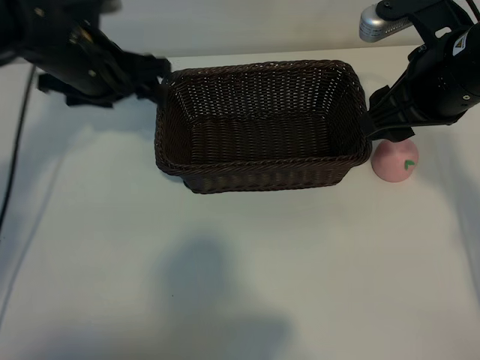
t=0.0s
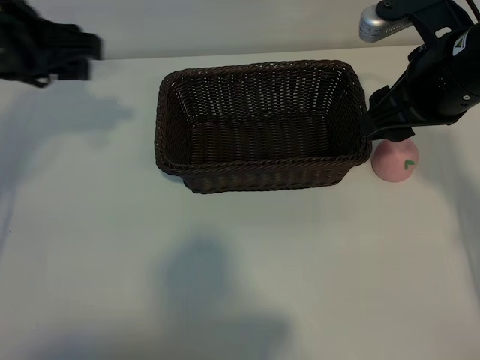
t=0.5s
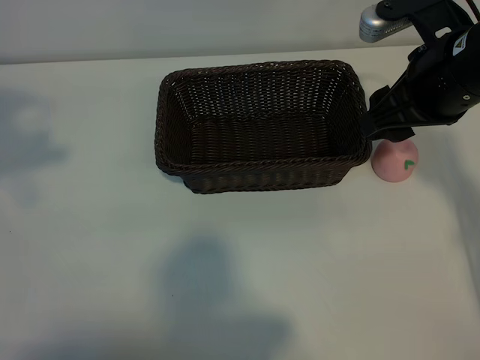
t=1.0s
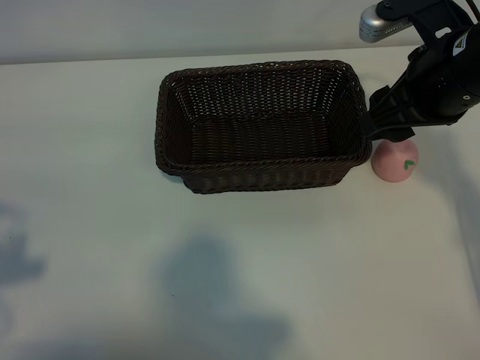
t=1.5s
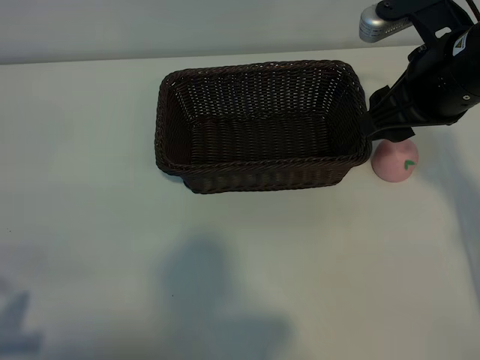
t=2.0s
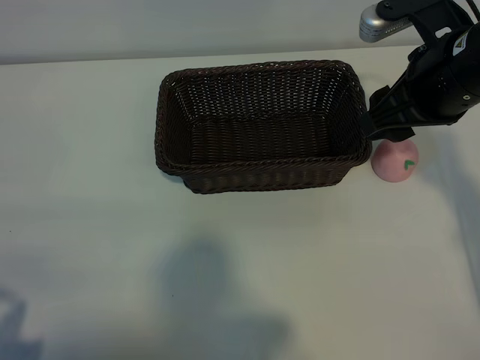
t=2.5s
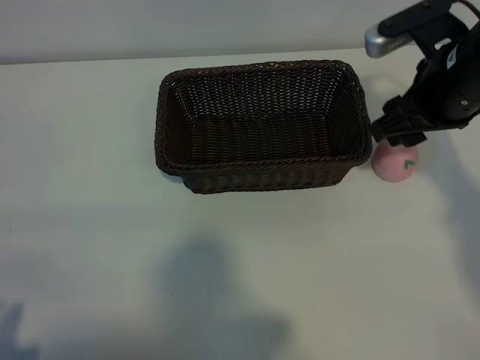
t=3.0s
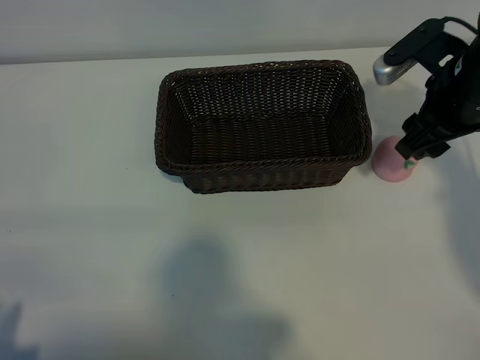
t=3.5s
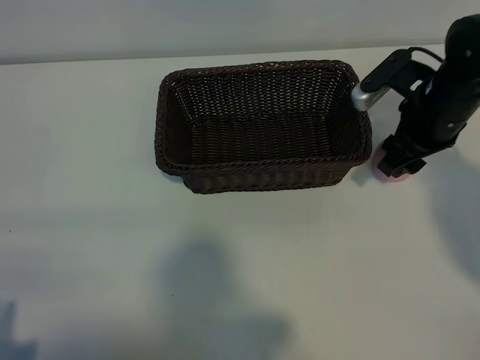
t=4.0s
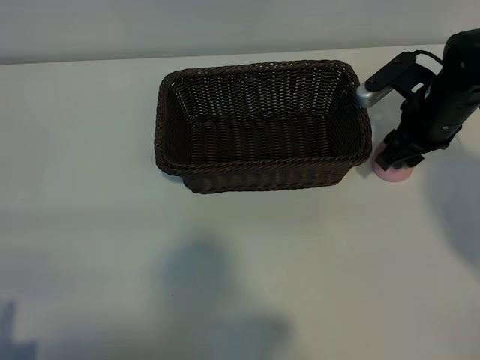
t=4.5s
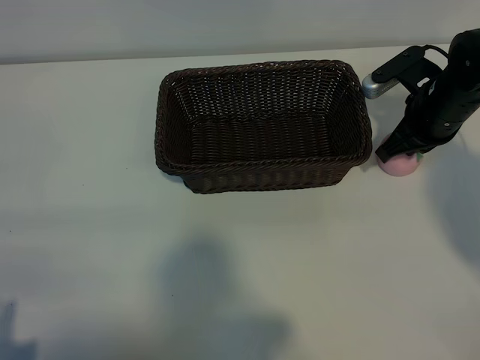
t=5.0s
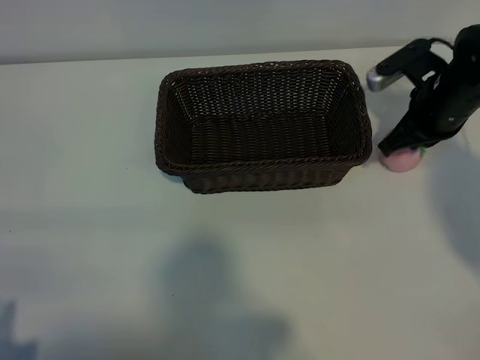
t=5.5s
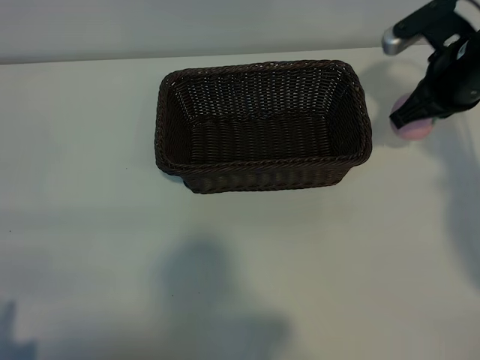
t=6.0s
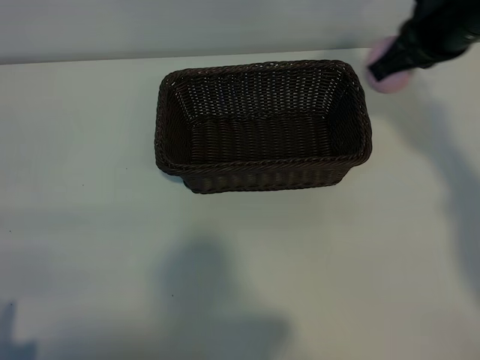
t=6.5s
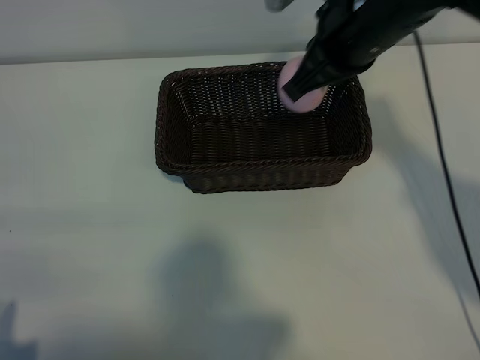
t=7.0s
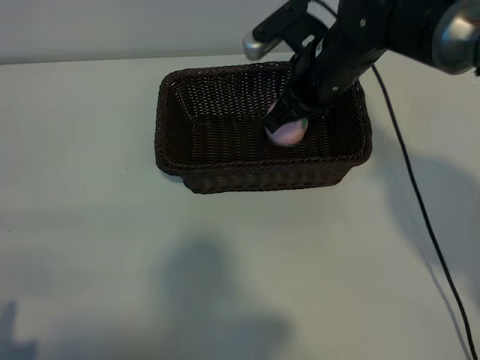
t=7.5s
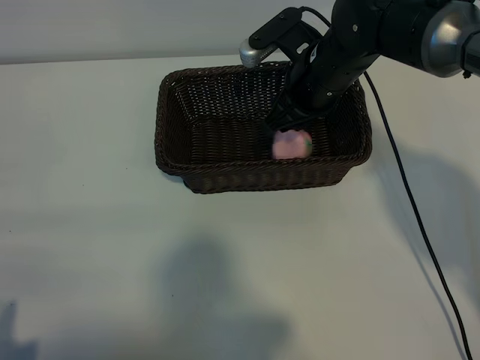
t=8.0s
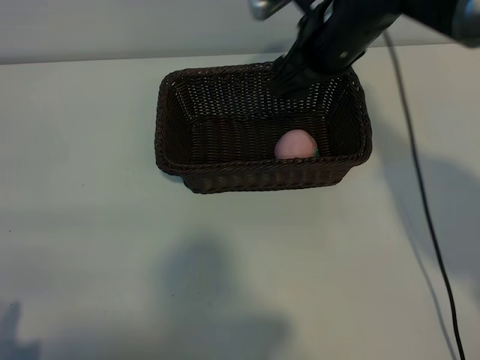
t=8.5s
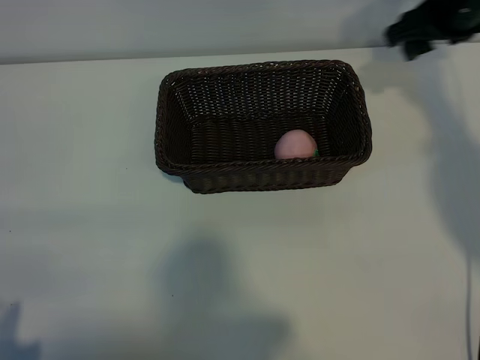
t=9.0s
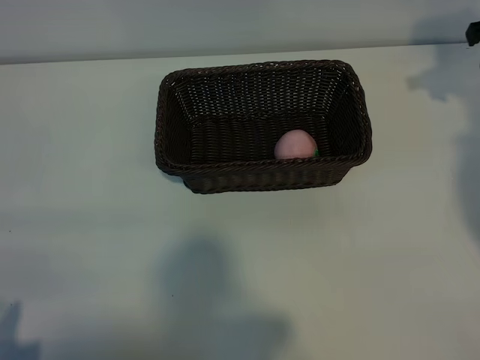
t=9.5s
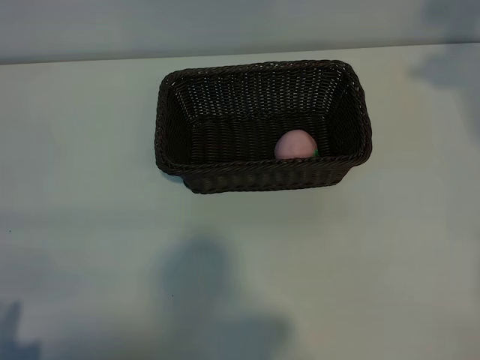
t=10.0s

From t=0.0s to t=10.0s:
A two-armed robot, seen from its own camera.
Task of the whole recording: pick up the peach and put it into the basket.
Step, from t=0.0s to t=5.0s: Grasp the peach with right gripper.
Step, from t=5.5s to t=8.0s: Place the peach in the basket with right gripper.

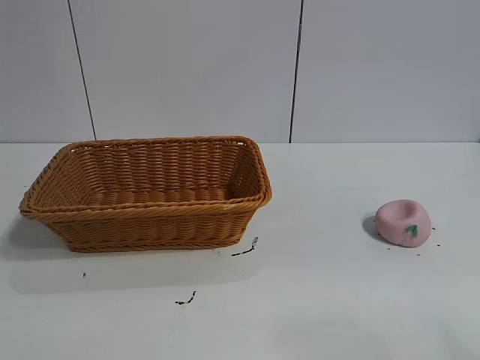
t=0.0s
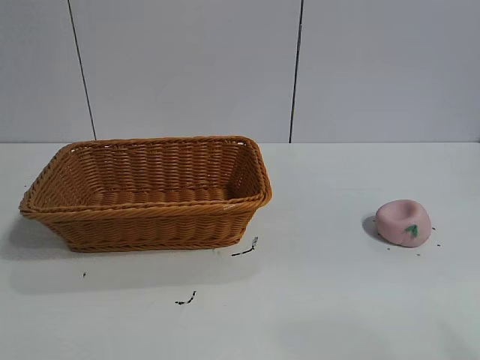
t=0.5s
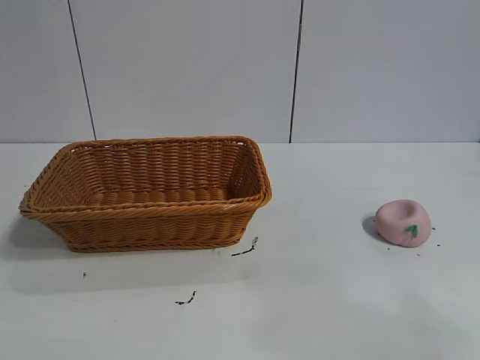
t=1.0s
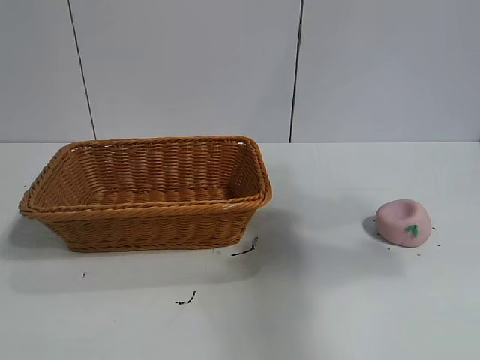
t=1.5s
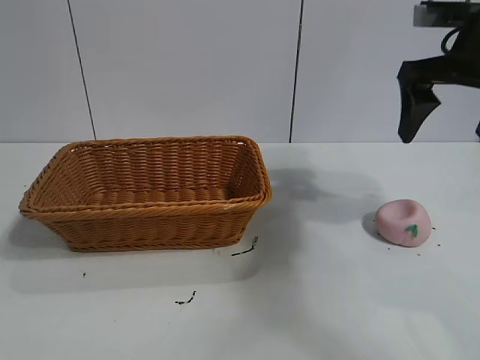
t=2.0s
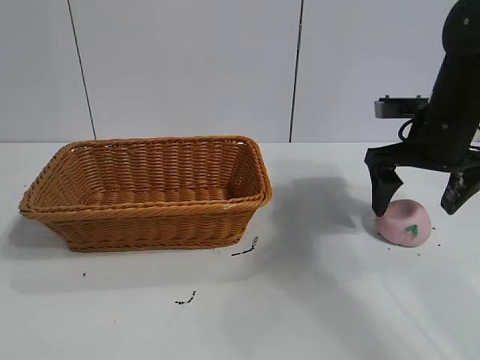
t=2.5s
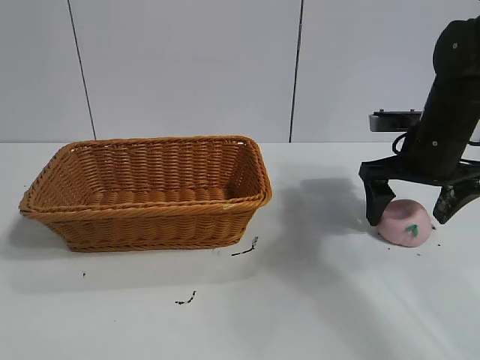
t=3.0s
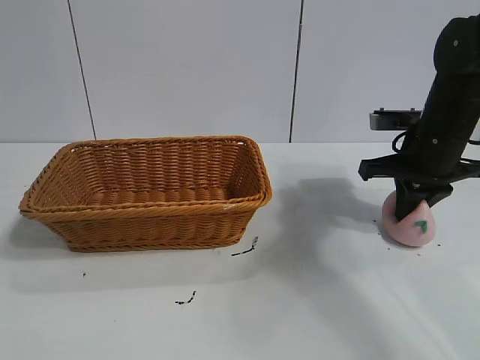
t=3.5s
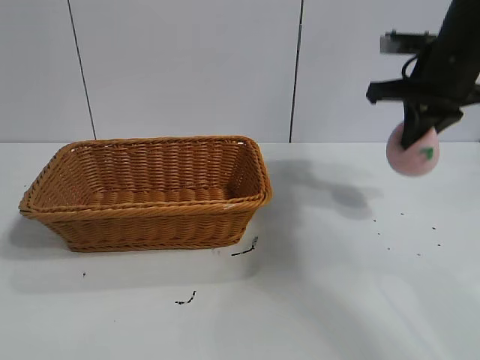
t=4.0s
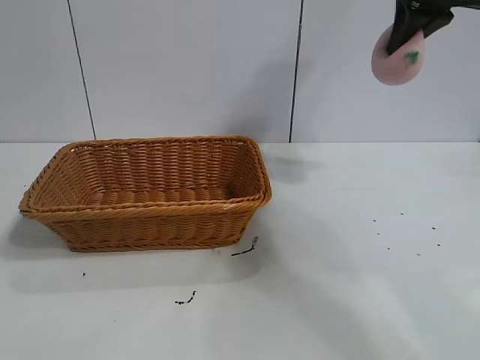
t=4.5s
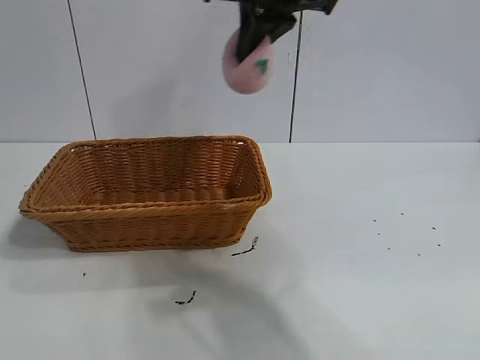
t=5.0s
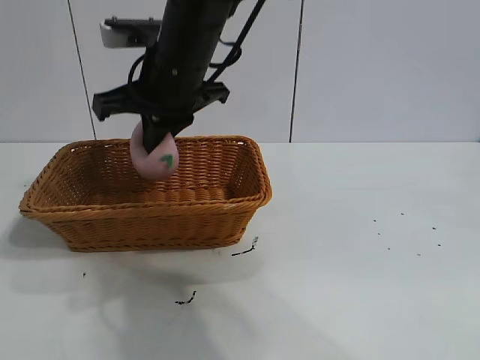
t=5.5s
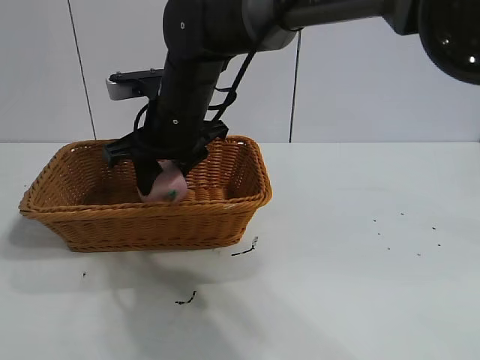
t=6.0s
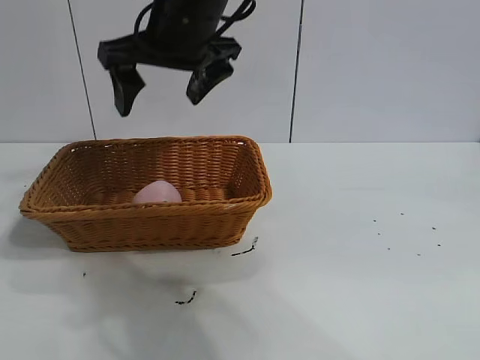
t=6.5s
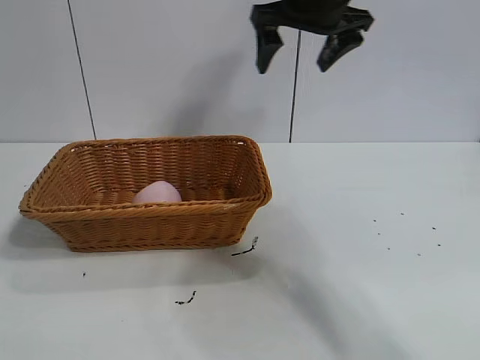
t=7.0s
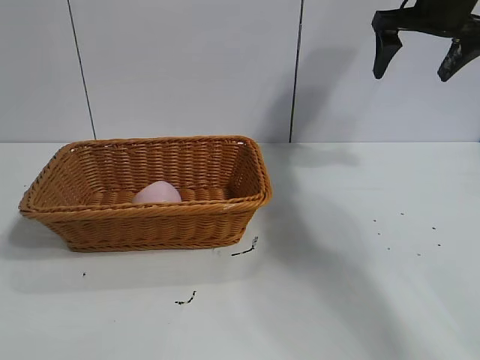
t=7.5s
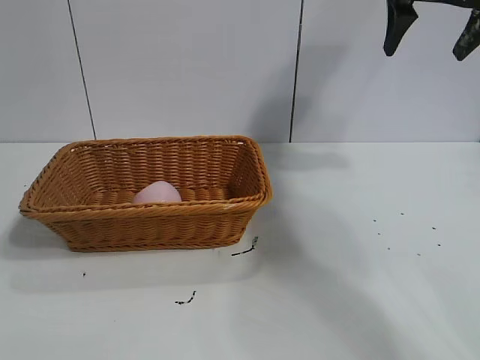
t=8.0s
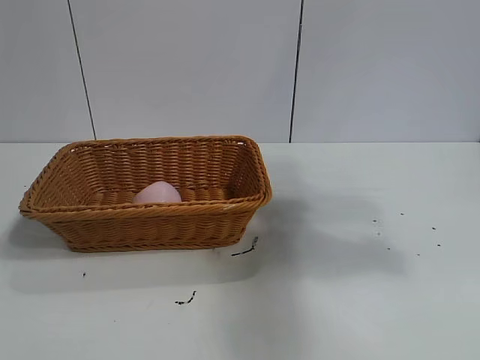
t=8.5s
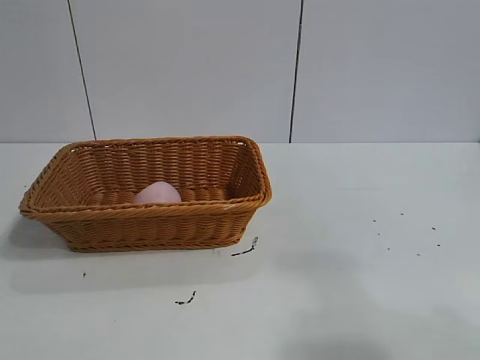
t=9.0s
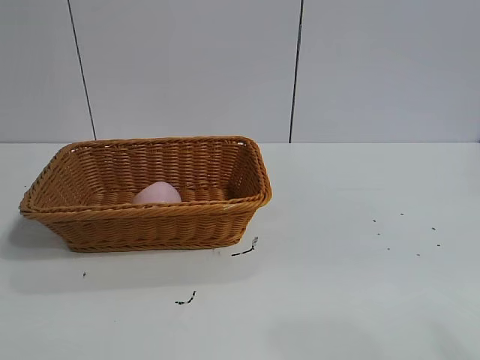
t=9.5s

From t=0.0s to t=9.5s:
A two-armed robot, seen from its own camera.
Task of the whole recording: pick up the peach and put it into the basket.
Step, from t=1.0s to t=3.5s: Grasp the peach with right gripper.
Step, from t=4.0s to t=6.0s: Place the peach in the basket with right gripper.

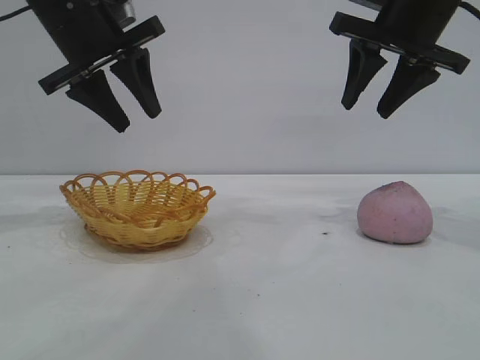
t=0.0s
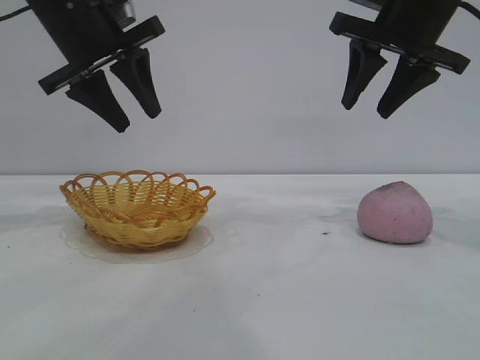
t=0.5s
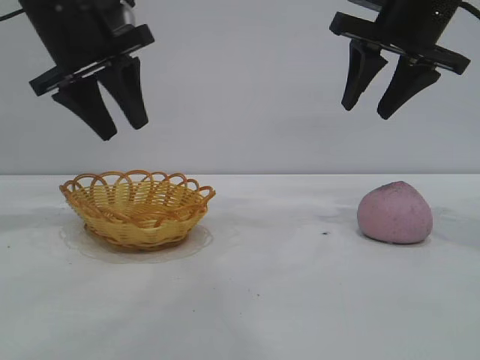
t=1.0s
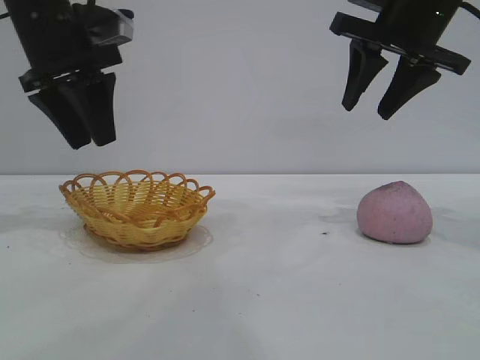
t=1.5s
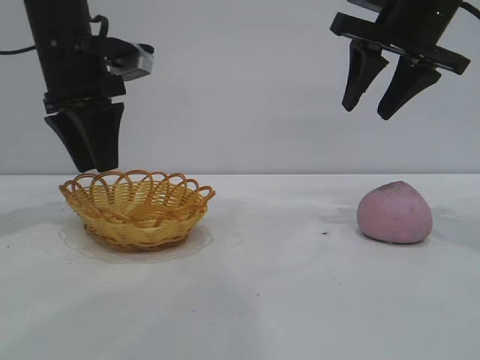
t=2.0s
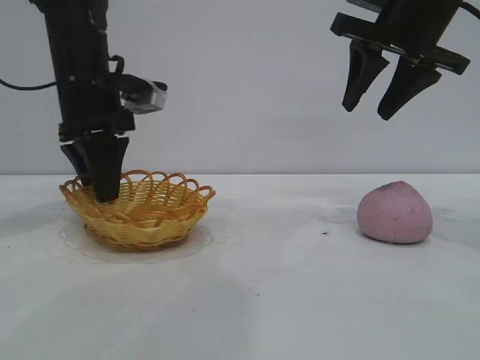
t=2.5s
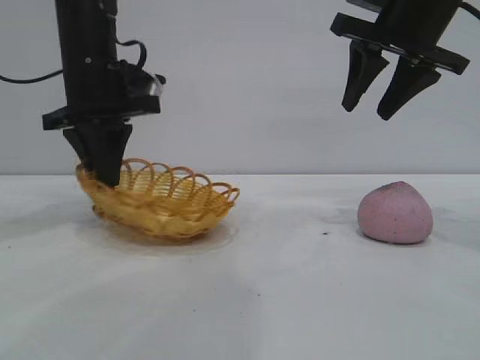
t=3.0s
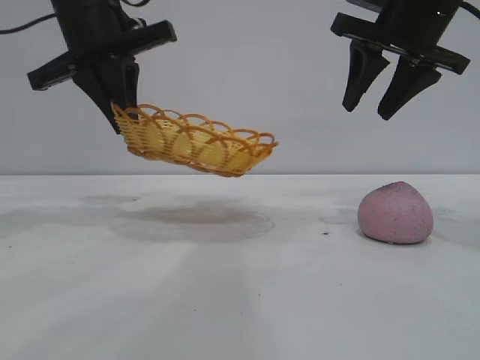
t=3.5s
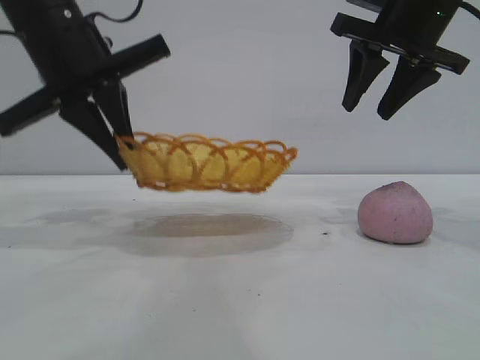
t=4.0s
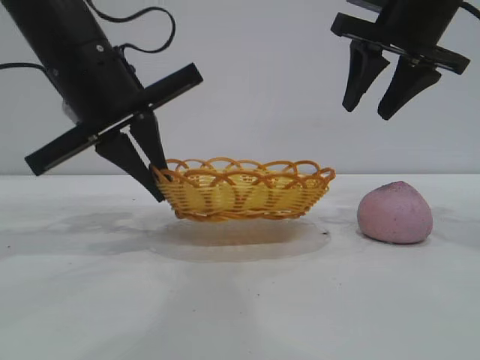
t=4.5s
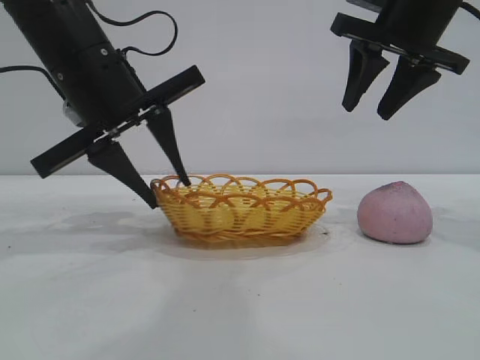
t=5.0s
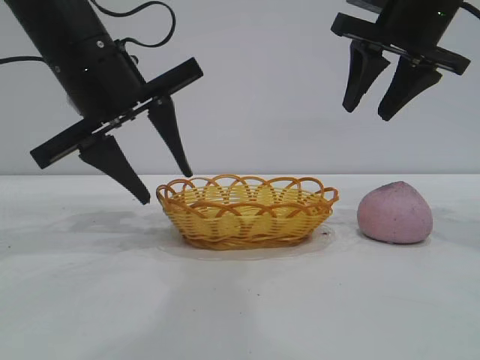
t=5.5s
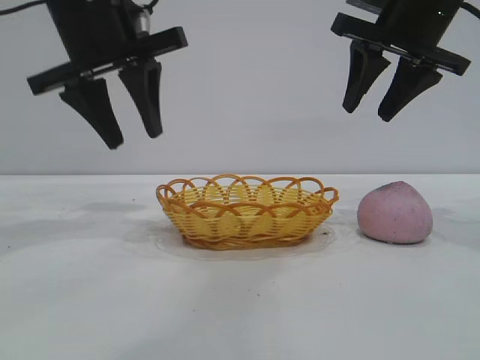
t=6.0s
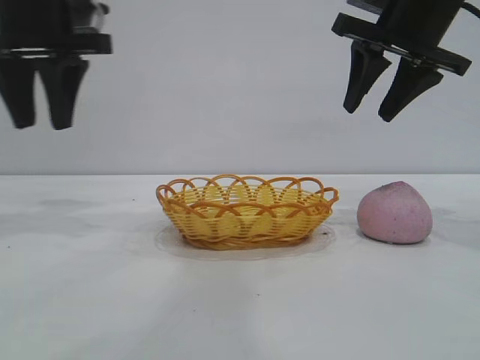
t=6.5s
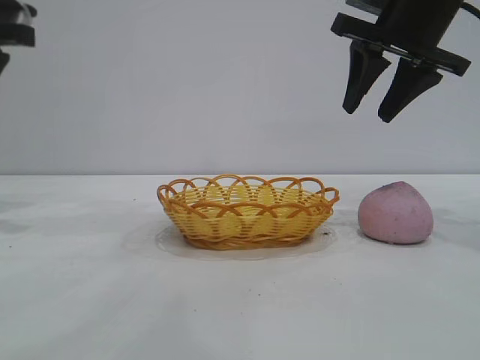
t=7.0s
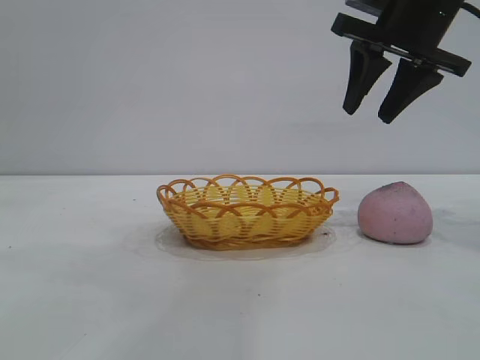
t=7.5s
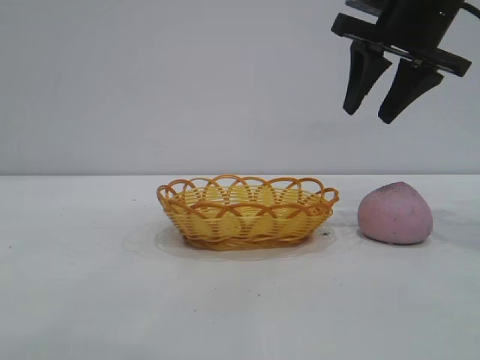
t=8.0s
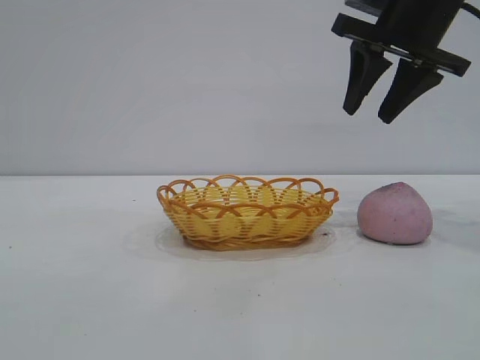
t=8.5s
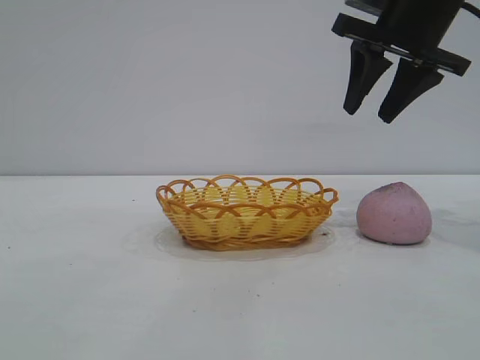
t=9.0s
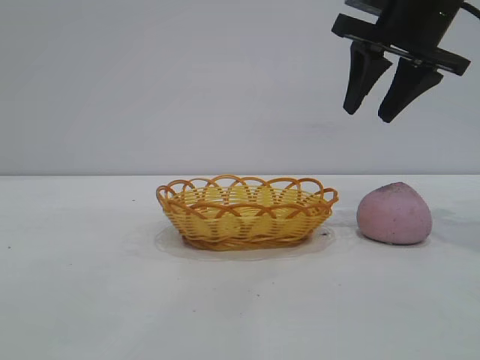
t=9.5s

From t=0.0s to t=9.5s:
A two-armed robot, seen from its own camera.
Task of the whole recording: pick up the peach and put it into the basket.
Step, from t=0.0s to t=5.5s: Move the basket to the center of view.
